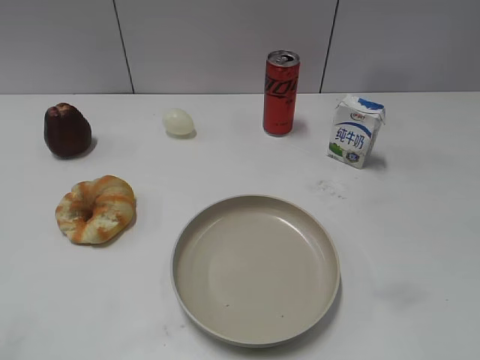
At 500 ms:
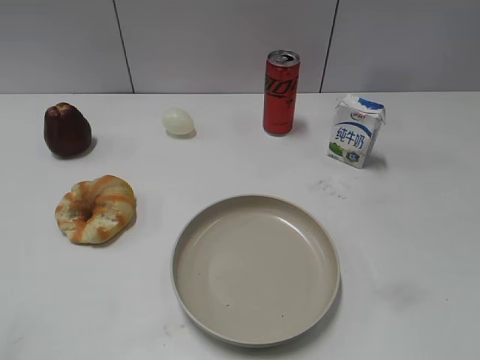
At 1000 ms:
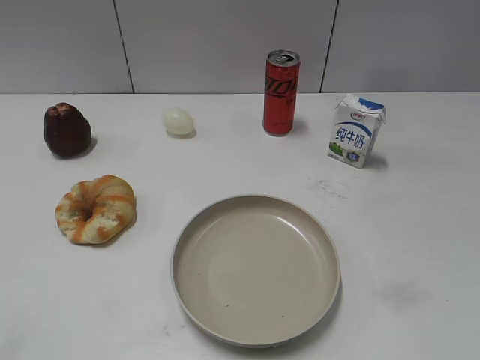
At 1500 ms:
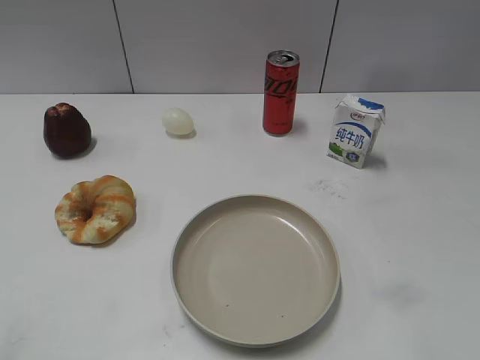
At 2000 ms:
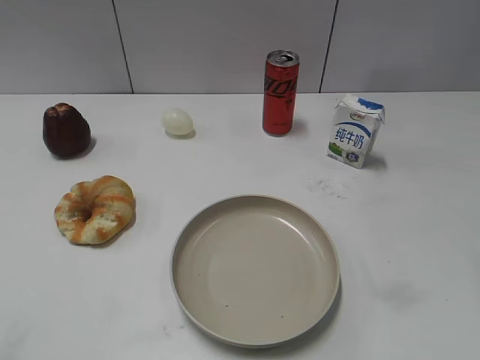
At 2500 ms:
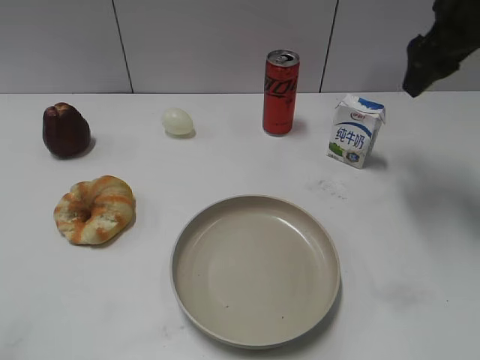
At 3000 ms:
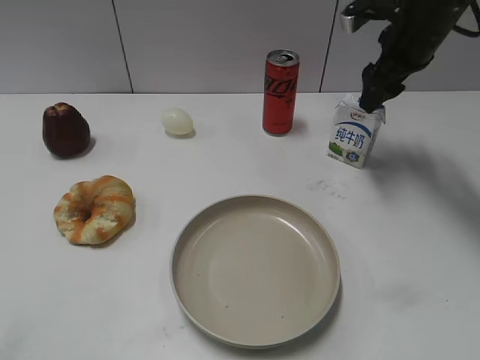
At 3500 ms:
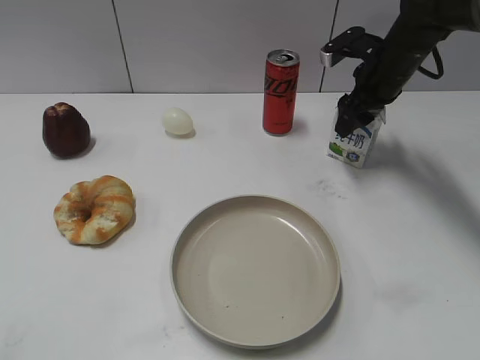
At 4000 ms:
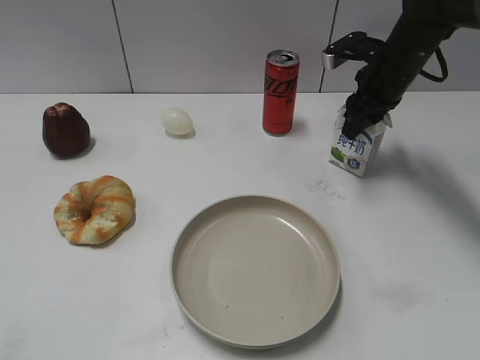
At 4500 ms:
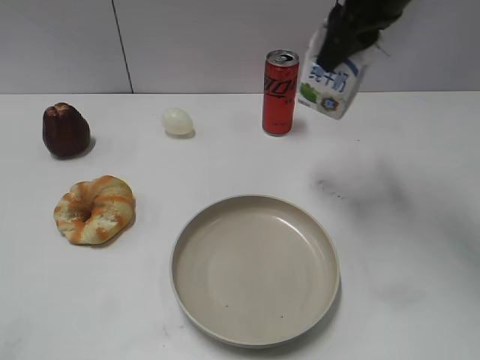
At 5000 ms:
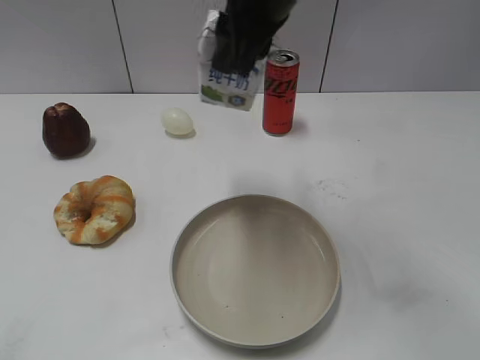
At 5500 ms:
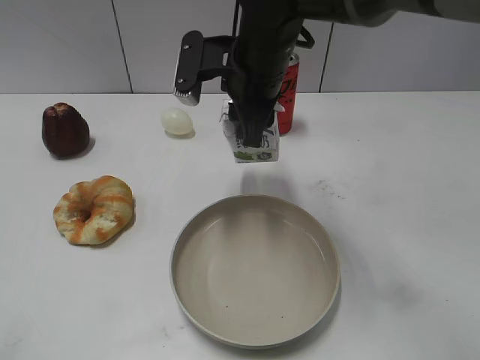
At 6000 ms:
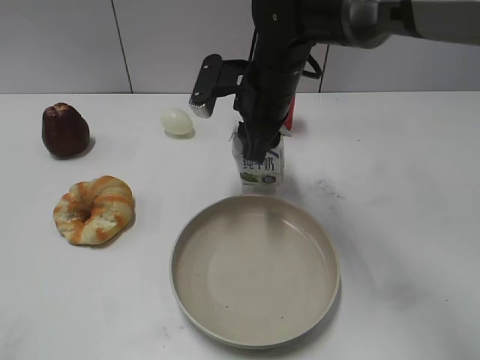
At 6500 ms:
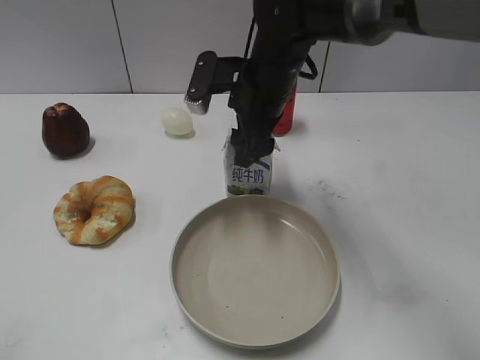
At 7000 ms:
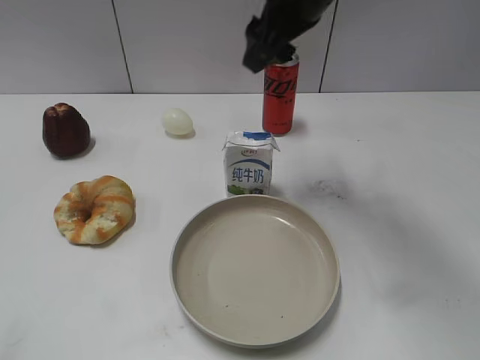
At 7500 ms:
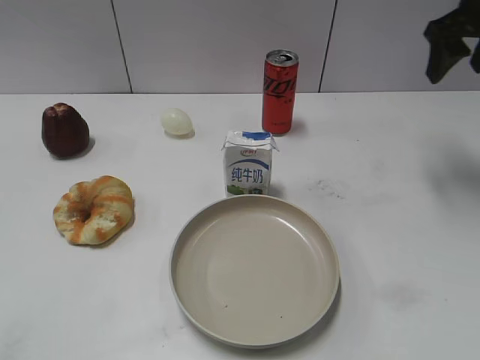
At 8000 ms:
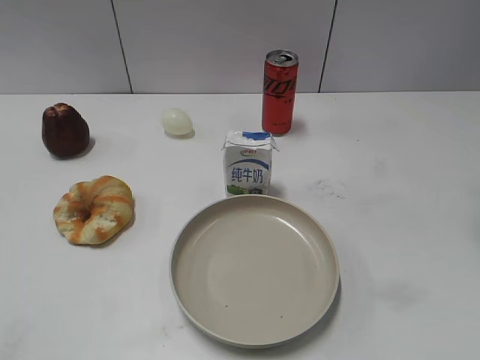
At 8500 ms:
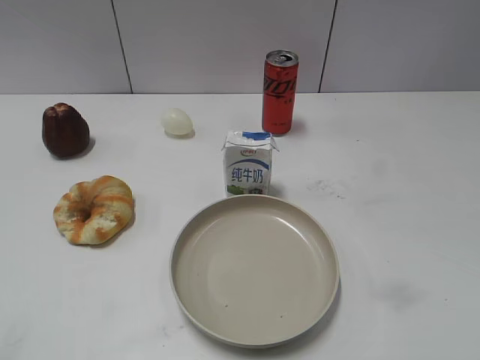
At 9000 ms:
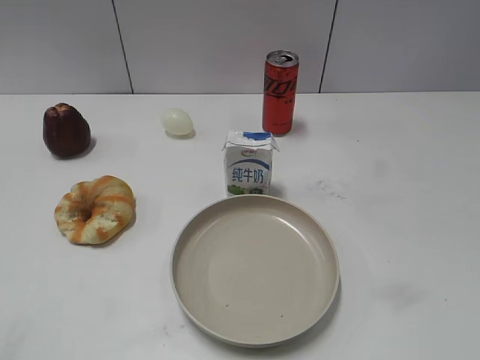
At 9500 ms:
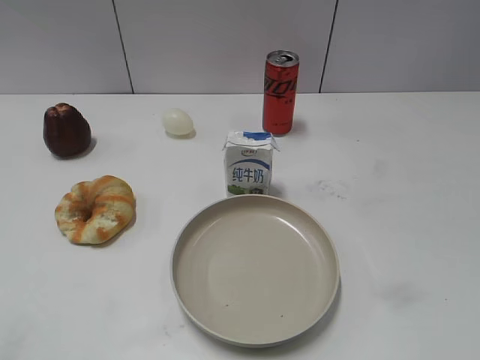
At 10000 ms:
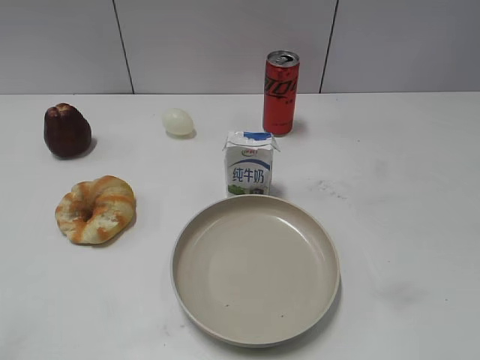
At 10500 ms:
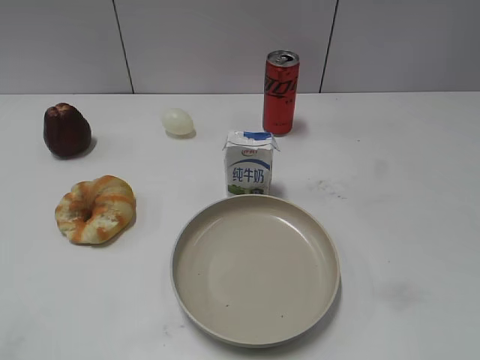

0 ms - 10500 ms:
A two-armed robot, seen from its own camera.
Step, 1500 ms - 4000 ms: Grasp the milk with right gripper.
Step, 4500 ms - 6500 ms: Place the milk on the table with right gripper.
2000 ms - 4000 ms: The right gripper moves forward and downward, approximately 30 cm, and closes.
4000 ms - 6500 ms: The right gripper moves to the left and backward, approximately 20 cm, and opens.
6500 ms - 8500 ms: The right gripper heads to the right and backward, covering approximately 35 cm.

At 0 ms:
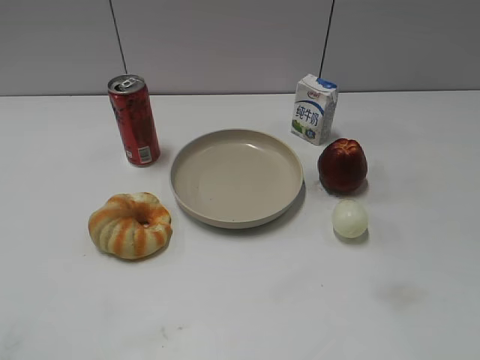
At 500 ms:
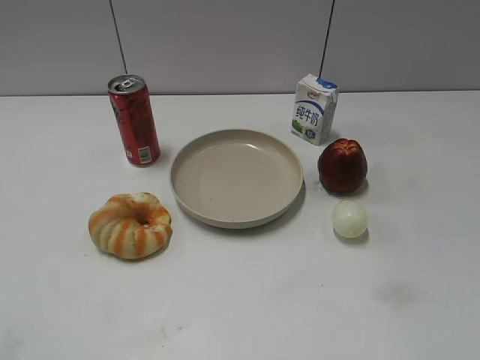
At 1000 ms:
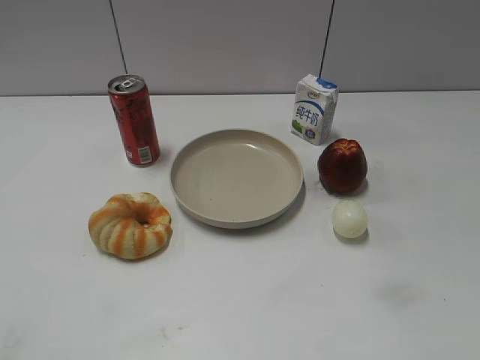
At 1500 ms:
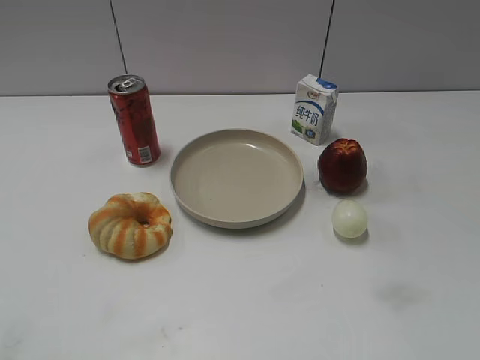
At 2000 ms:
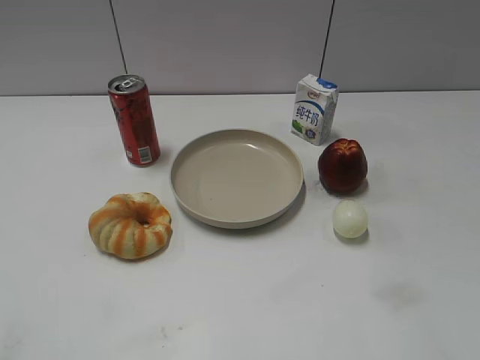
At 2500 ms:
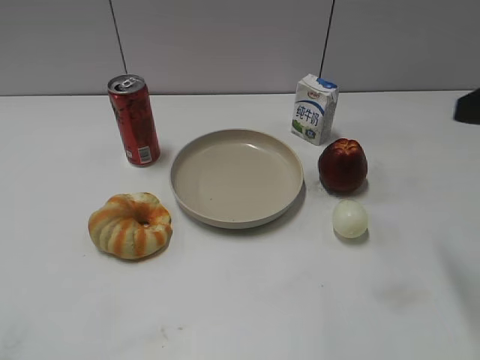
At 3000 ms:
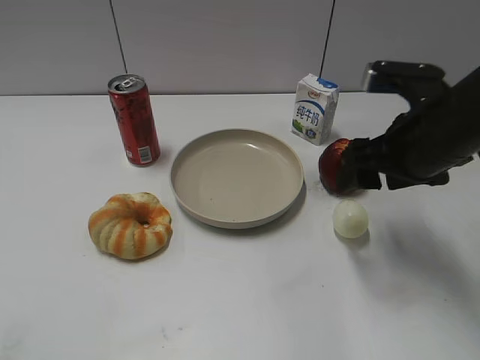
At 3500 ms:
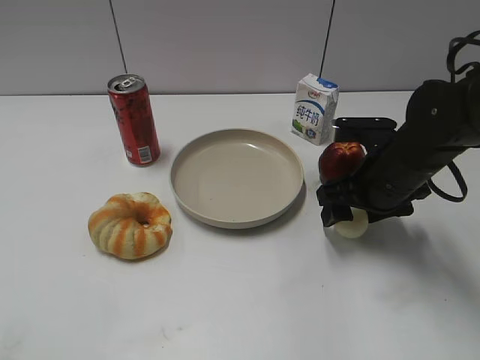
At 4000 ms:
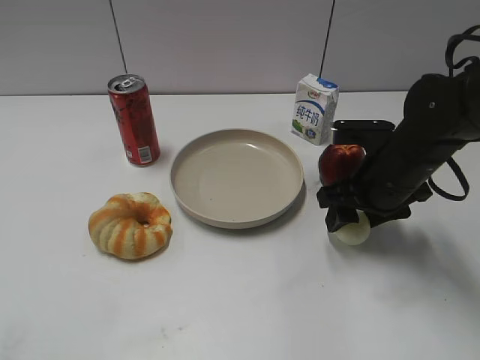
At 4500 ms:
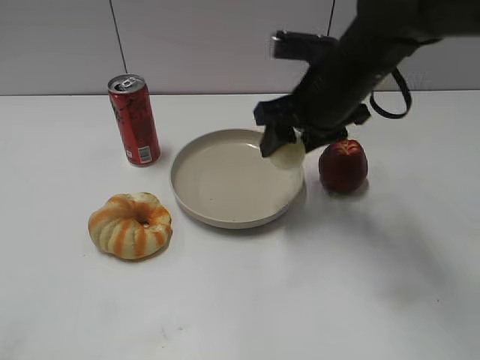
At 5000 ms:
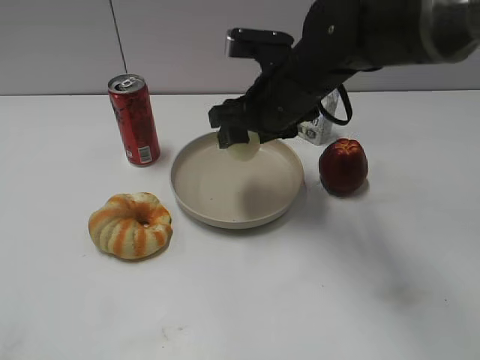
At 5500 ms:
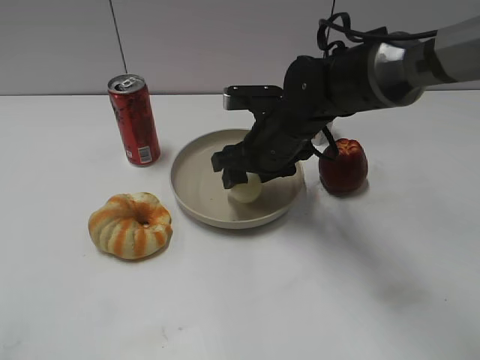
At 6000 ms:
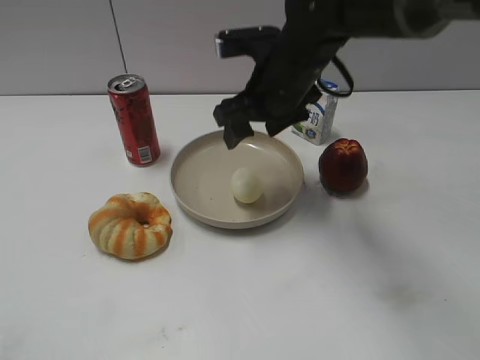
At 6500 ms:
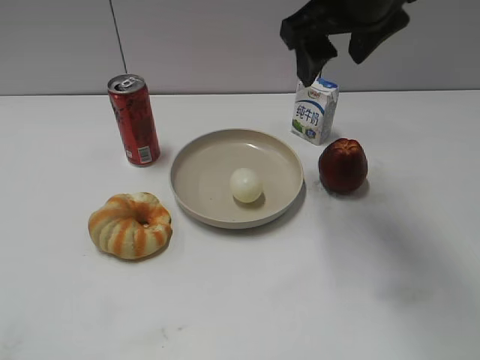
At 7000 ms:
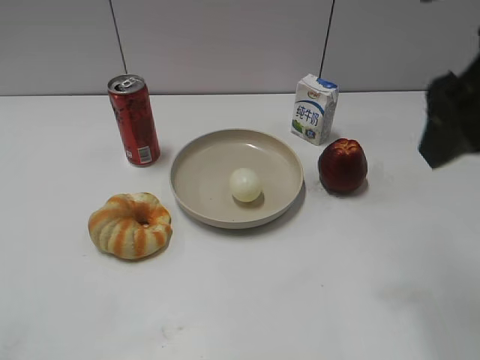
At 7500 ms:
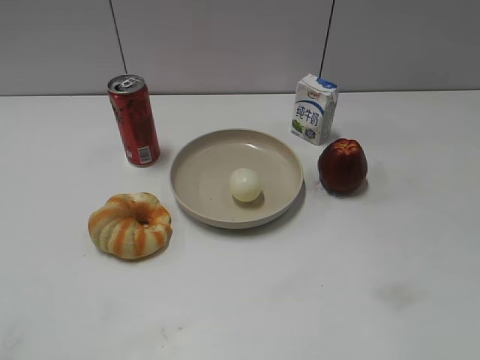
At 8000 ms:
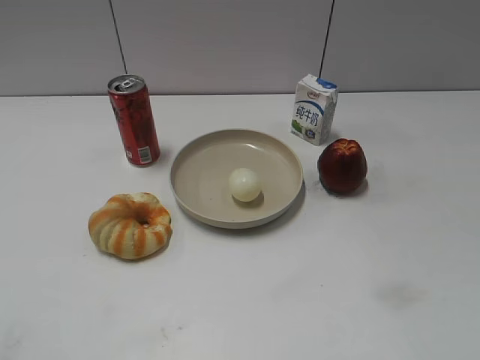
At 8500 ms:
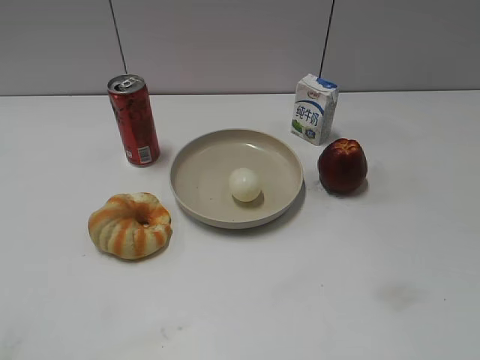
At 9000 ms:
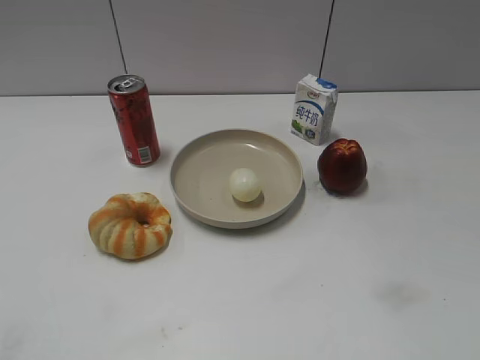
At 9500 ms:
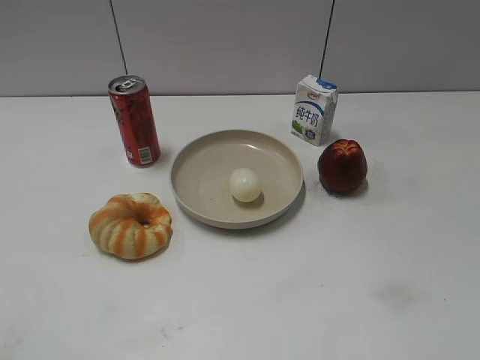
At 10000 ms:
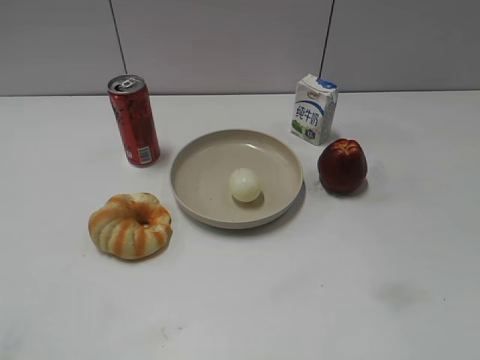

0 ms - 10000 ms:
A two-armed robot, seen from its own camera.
Step, 1500 ms - 4000 ms: Grasp the egg with right gripper.
Step, 4500 ms - 5500 ms: Place the egg on the plate with right gripper.
2000 ms - 4000 ms: The right gripper heads forward, downward and to the left, covering some 35 cm, and closes.
4000 ms - 6000 ms: The right gripper is displaced to the left and forward by some 15 cm, and opens.
6000 ms - 8000 ms: The right gripper is displaced backward and to the right by some 40 cm.
